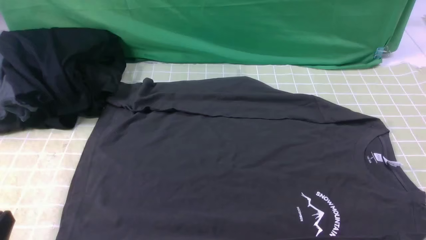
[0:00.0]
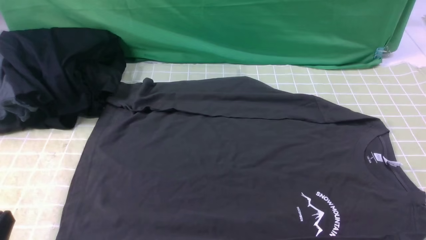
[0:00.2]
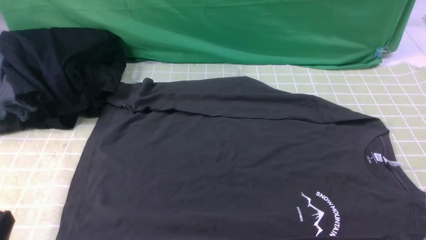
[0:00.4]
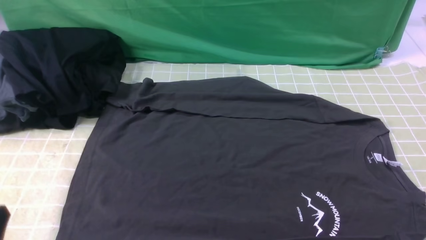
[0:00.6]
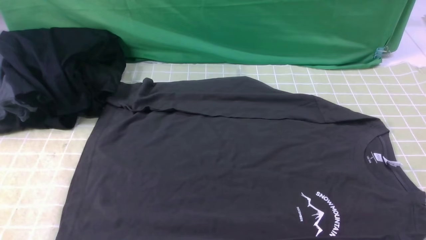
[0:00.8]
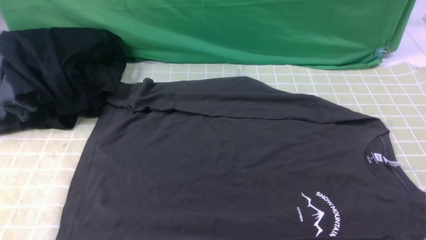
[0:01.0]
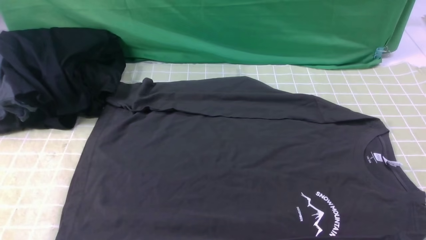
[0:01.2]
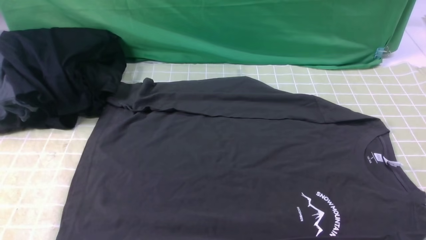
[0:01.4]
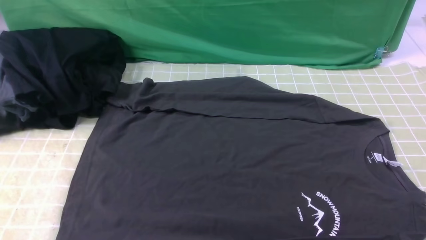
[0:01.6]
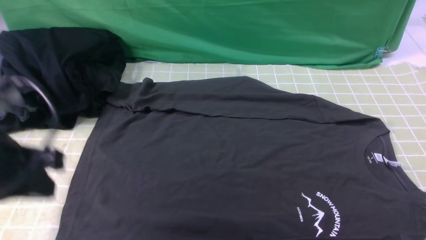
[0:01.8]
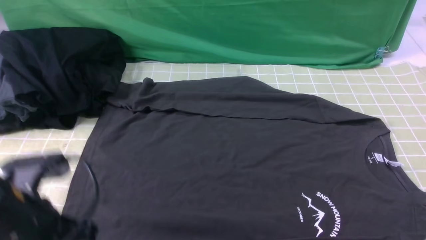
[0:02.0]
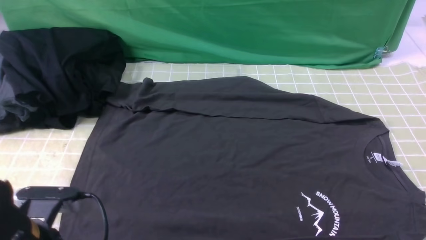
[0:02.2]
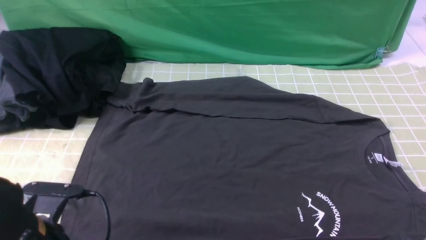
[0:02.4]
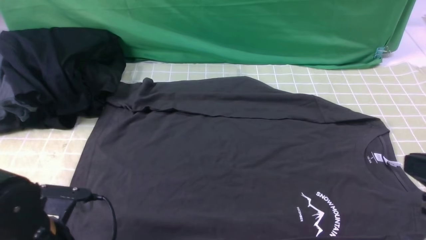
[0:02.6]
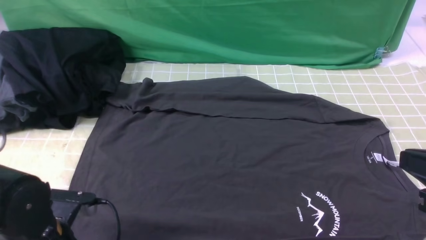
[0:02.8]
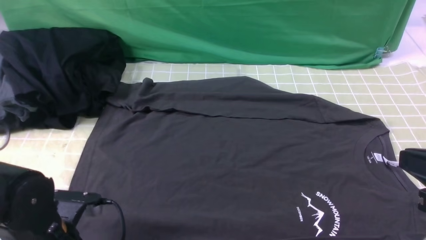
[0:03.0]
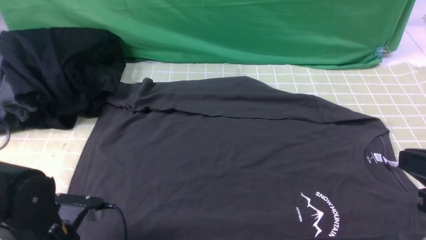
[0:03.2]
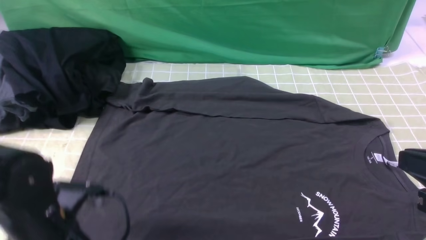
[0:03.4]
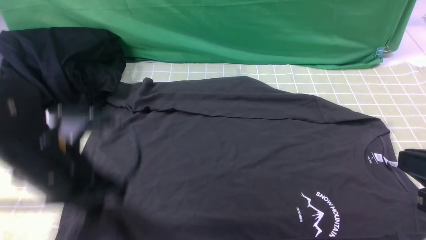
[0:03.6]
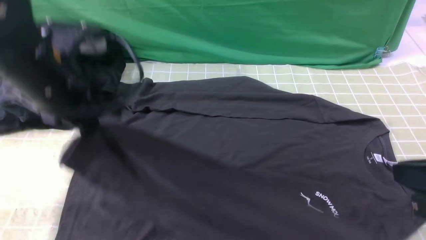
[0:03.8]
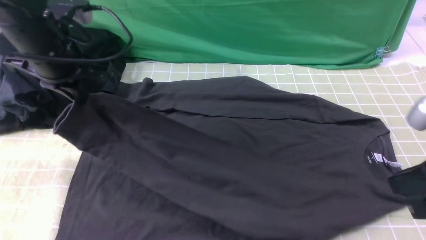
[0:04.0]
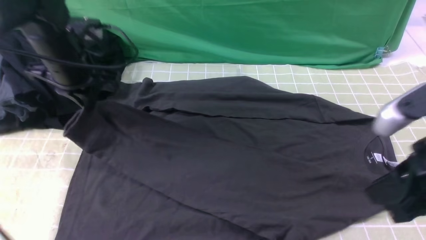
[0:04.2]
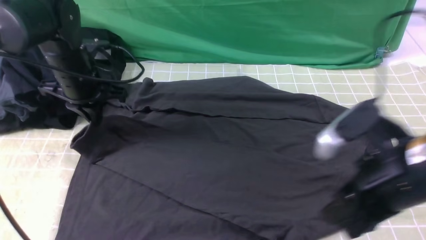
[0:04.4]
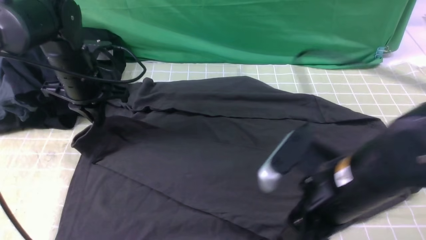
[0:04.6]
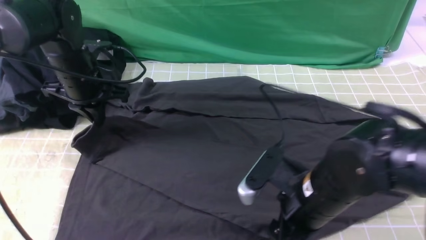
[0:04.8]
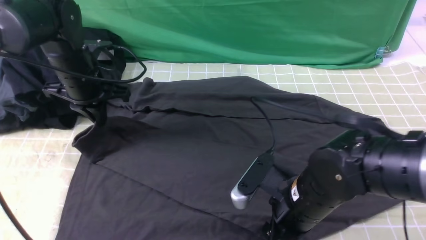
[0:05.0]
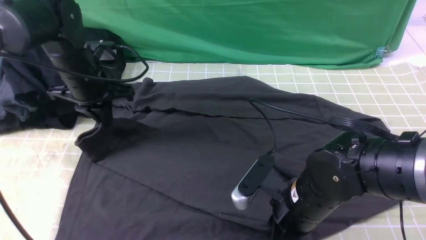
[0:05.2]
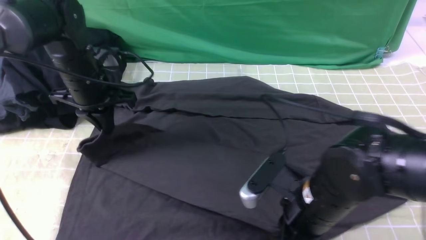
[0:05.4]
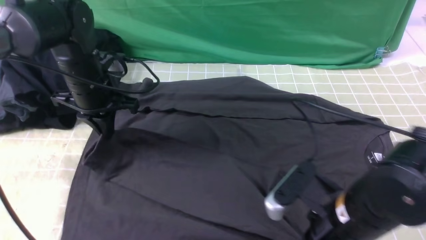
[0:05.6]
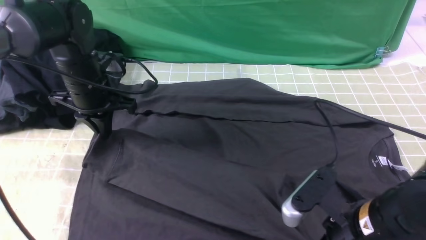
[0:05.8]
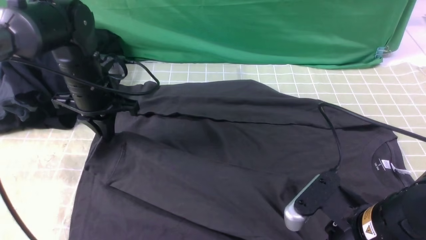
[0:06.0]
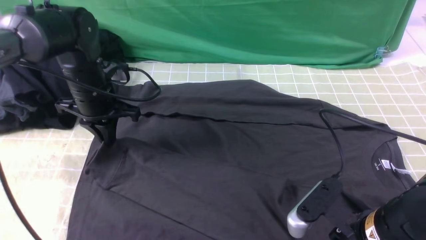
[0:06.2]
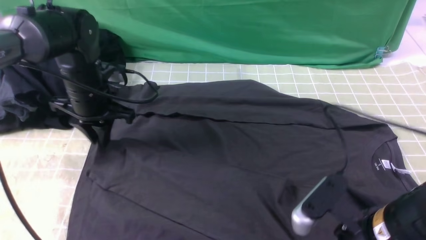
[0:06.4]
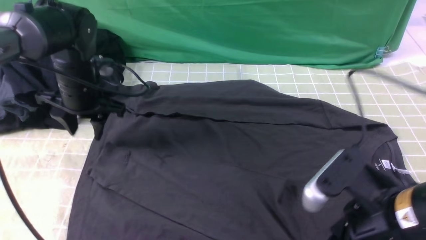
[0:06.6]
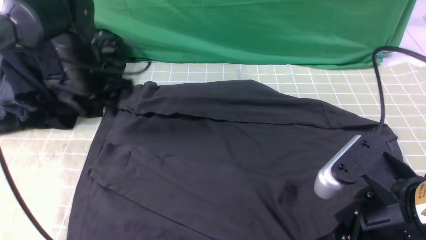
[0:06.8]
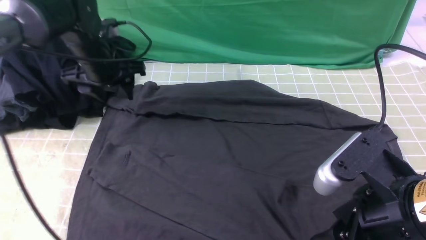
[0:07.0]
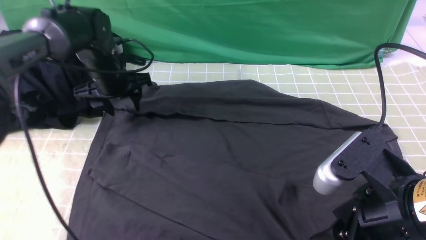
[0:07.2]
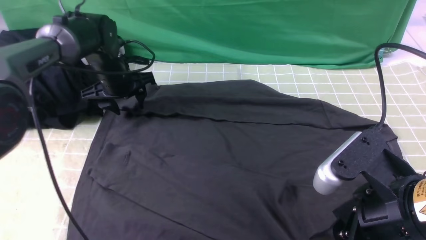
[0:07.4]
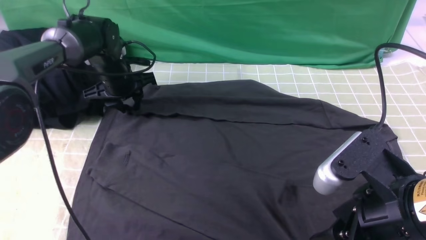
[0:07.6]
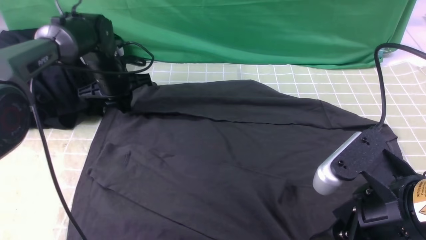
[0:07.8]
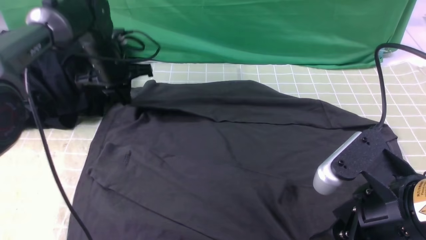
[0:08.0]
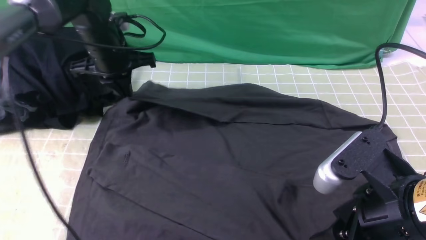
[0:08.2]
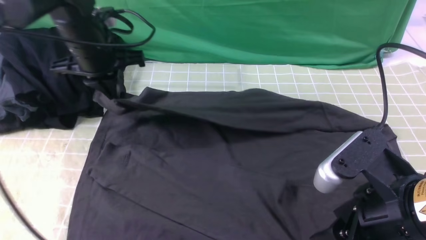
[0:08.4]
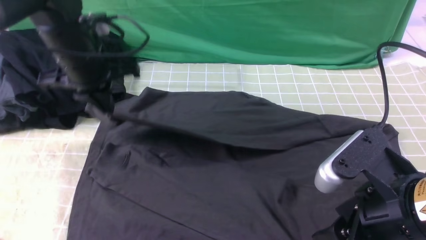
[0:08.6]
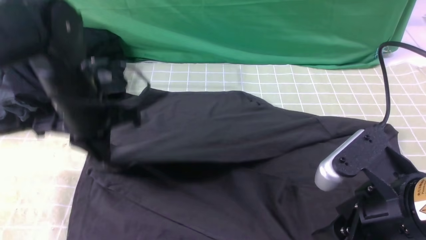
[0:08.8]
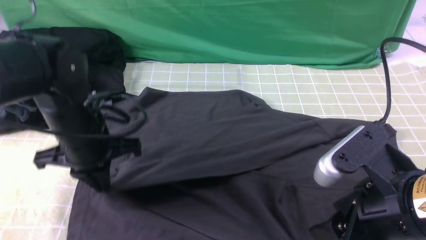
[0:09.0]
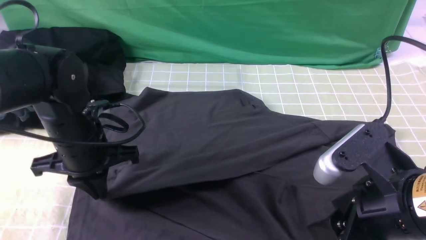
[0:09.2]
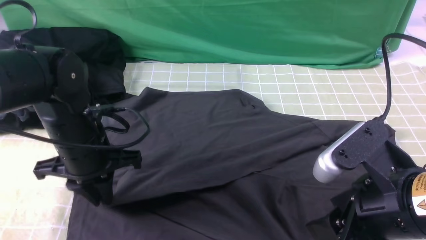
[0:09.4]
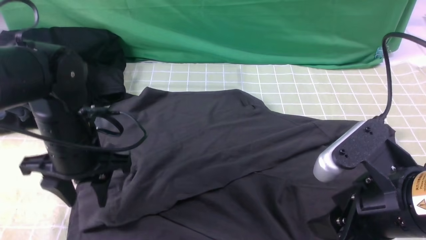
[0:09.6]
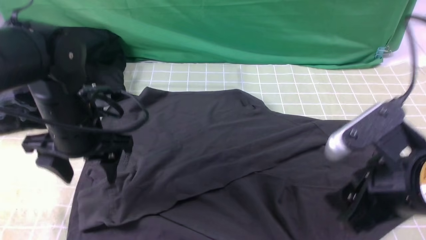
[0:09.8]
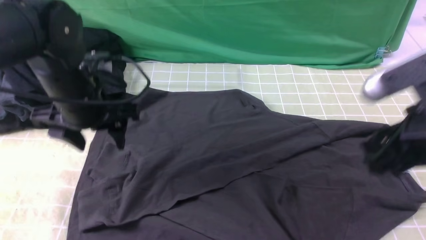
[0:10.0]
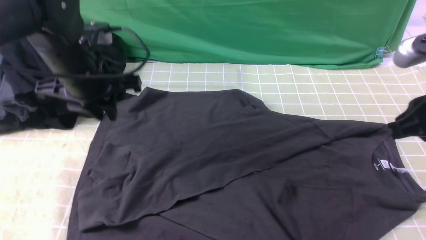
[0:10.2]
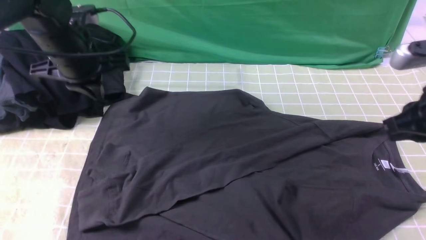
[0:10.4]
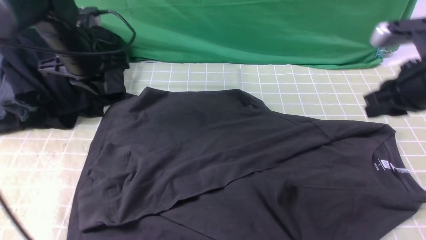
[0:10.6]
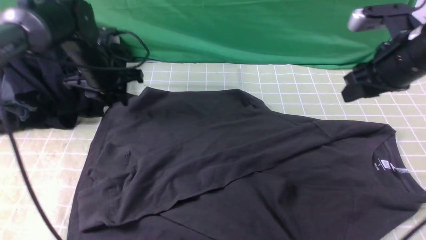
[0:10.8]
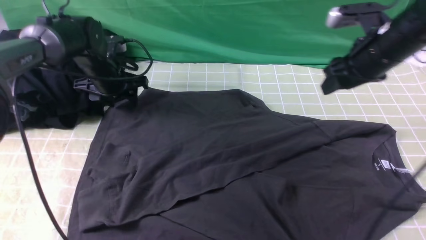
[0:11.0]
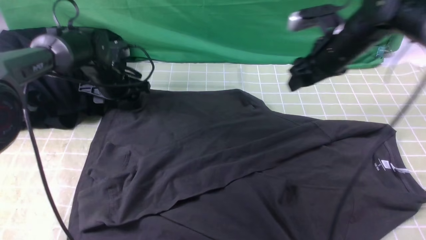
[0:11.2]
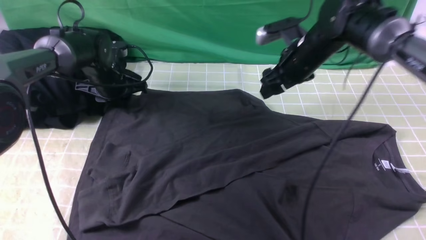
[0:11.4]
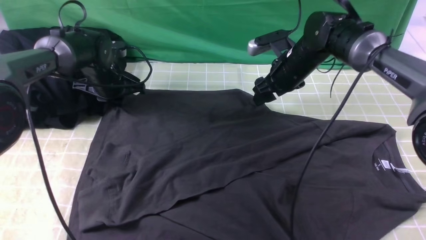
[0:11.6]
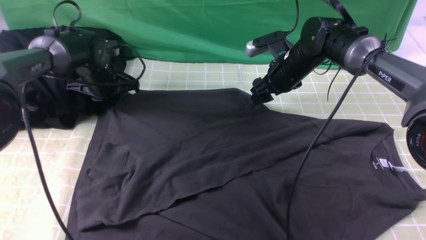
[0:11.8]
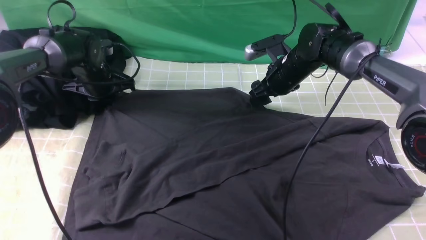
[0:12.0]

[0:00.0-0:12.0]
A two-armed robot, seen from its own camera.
Step, 0:00.0 to 0:03.0: use the left arm to clamp the cuff closest to it.
Step, 0:03.2 to 0:06.4: use the left arm to drag and place the cuff at the centered position on the left edge of the fabric.
Step, 0:06.8 to 0:07.8: use the left arm to clamp the cuff farthest from it.
Step, 0:08.0 to 0:09.6: use the left arm to drag and drop the cuff onto the cuff closest to the left arm.
0:01.6 to 0:03.0: The right gripper shifts about 10 cm upward, forward and to the left, and closes its fingers. The left gripper shifts some 20 cm downward, and opens.
0:03.0 to 0:04.4: The right gripper moves to the left and forward, roughly 10 cm, and opens. Meanwhile the left gripper heads forward, covering roughly 25 cm, and closes.
0:04.4 to 0:06.0: The right gripper is displaced downward by approximately 5 cm, and closes up.
0:06.0 to 0:07.6: The left gripper goes roughly 10 cm forward, and opens its fingers. Meanwhile the right gripper travels upward by some 5 cm, and opens its fingers.
0:07.6 to 0:09.0: The left gripper shifts approximately 20 cm backward, and closes its fingers.
0:09.0 to 0:10.4: The left gripper moves forward and upward, about 10 cm, and opens and closes again; the right gripper is displaced forward and to the right by some 15 cm, and closes up.
0:10.4 to 0:12.0: The left gripper is displaced downward and forward by some 15 cm, and opens and closes again, while the right gripper travels forward, downward and to the left by some 30 cm, and opens up.

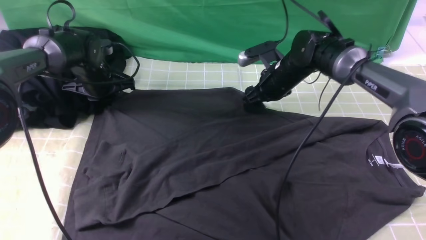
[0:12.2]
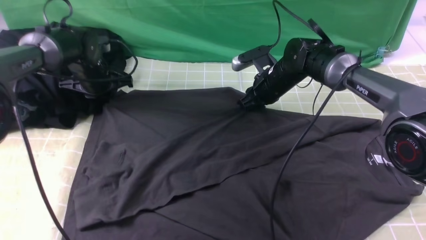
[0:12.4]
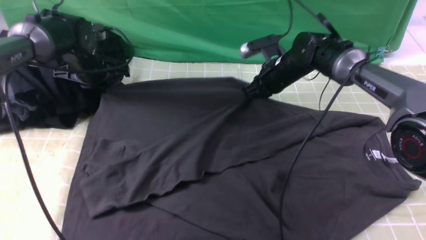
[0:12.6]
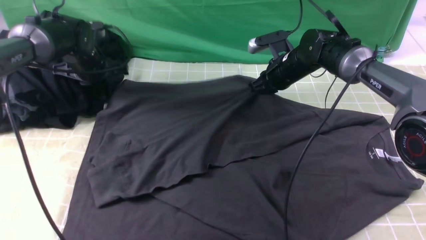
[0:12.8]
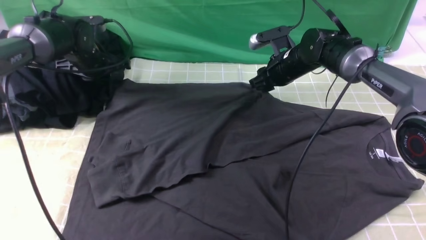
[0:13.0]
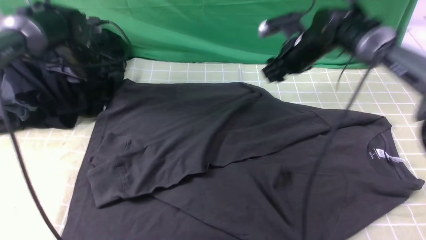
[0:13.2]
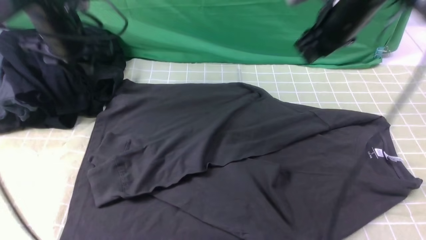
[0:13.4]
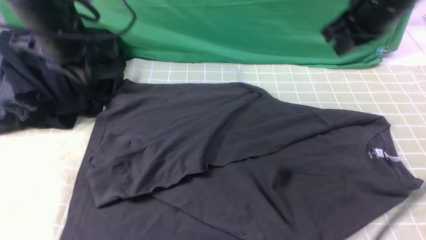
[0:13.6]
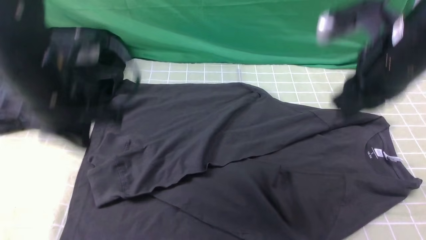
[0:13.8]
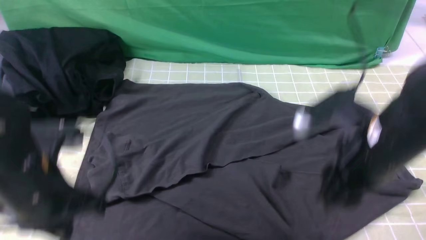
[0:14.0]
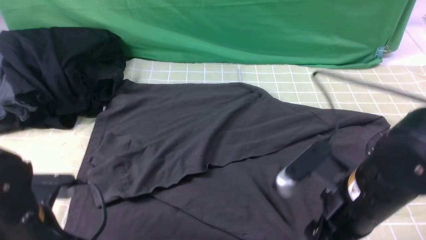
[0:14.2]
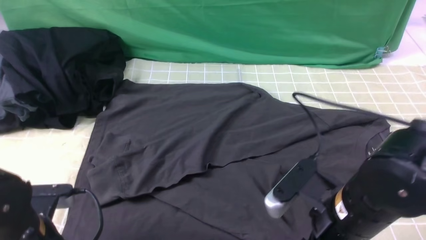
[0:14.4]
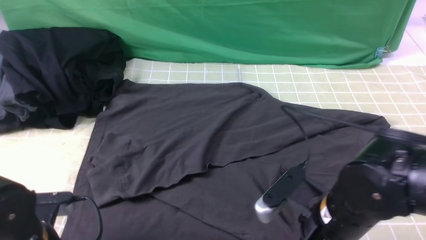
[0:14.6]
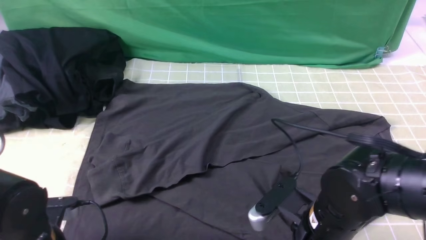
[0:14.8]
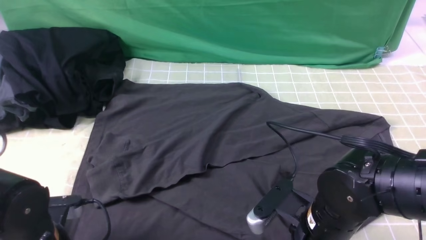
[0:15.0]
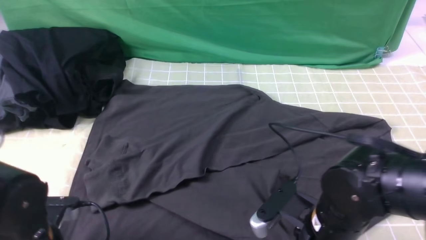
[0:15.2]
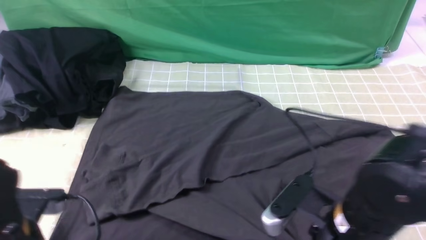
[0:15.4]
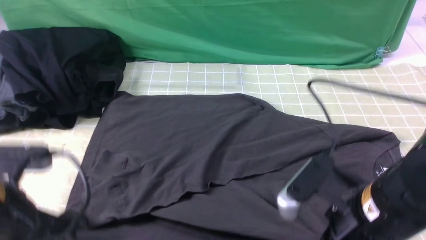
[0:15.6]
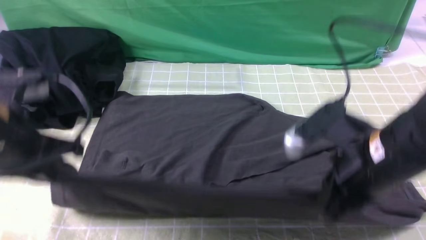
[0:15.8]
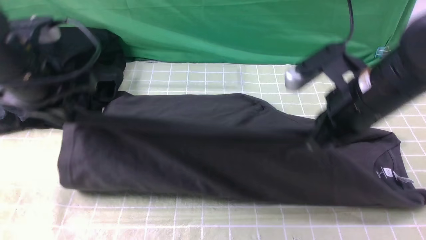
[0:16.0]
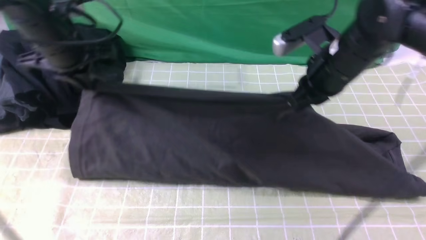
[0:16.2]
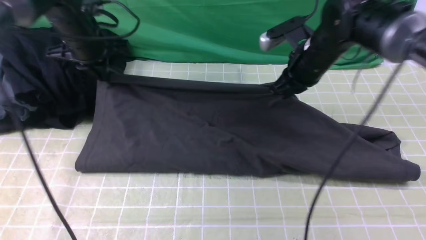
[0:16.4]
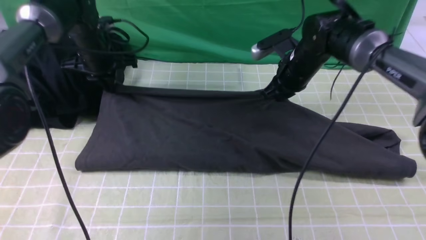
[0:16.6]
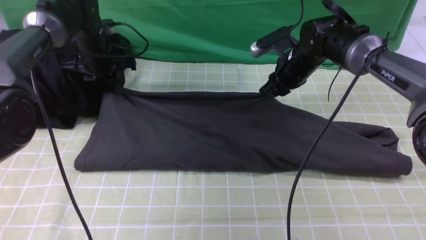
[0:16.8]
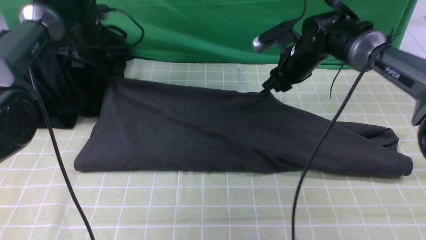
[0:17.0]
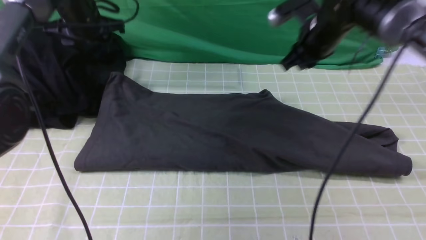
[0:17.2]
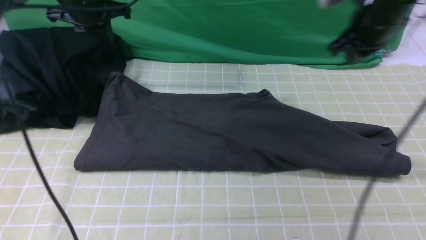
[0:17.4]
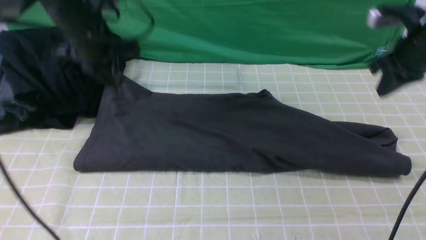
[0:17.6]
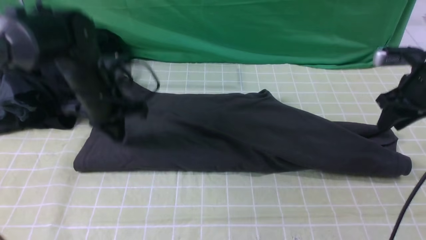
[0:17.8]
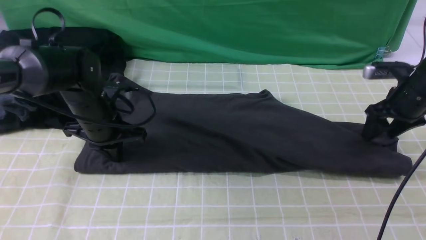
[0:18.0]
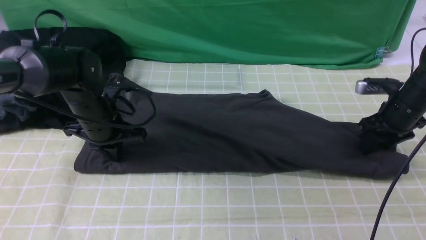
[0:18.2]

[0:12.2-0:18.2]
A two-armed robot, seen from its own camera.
Step, 0:12.2 to 0:14.8: use both arms simultaneously to clamp the lower edge of the clothing fabric.
Step, 0:15.2 to 0:17.0: use both arms to drag the lower edge of the fabric forward and fold it over the upper edge.
0:12.2 to 0:13.8: Both grippers move backward and upward, roughly 25 cm. The left gripper opens and closes again. Meanwhile the right gripper closes up.
0:13.8 to 0:15.2: Both grippers travel together downward and backward, about 15 cm. The left gripper opens, then closes again, while the right gripper opens, then closes once more.
0:15.2 to 0:16.6: Both grippers travel together forward, roughly 35 cm.
0:16.6 to 0:18.2: The right gripper goes approximately 20 cm to the right; the left gripper is displaced backward and downward by some 15 cm, and opens, then closes once more.
